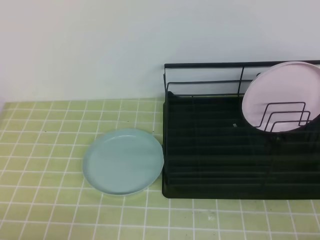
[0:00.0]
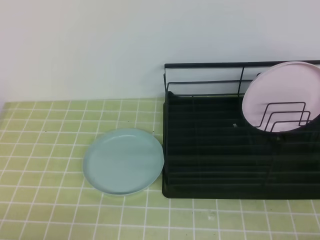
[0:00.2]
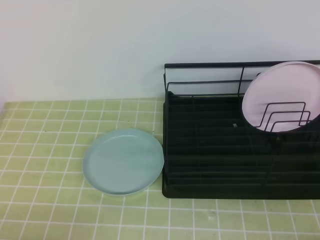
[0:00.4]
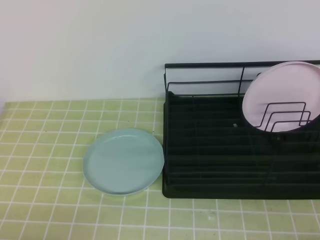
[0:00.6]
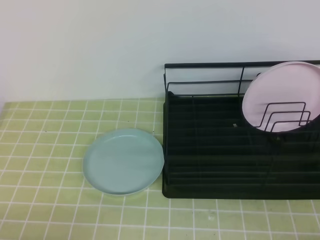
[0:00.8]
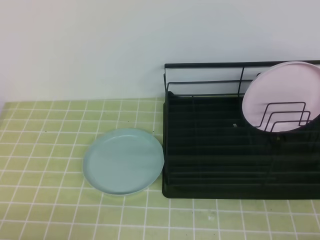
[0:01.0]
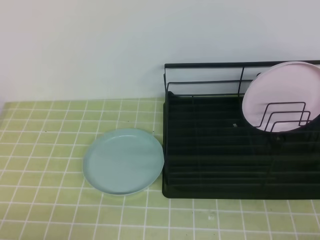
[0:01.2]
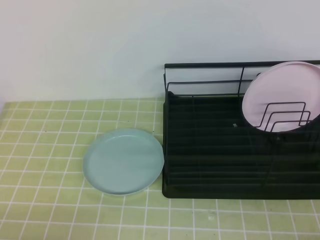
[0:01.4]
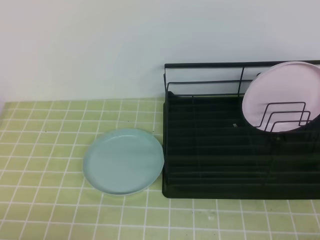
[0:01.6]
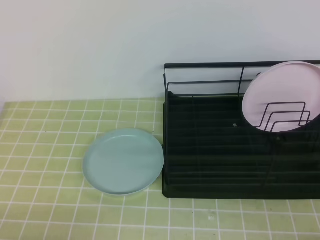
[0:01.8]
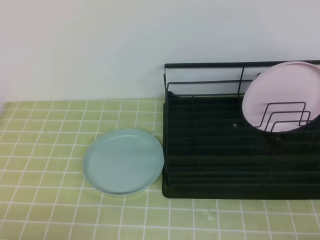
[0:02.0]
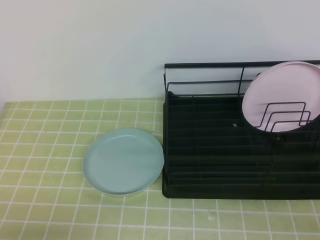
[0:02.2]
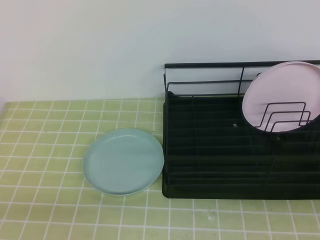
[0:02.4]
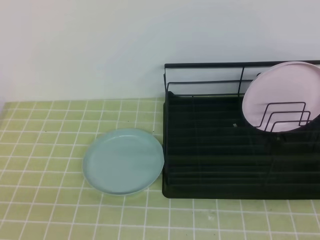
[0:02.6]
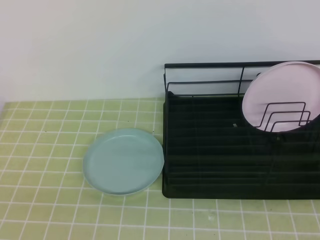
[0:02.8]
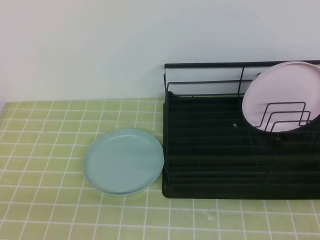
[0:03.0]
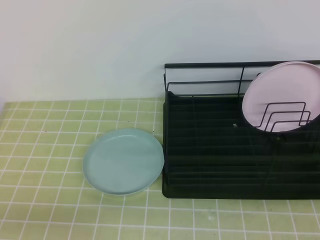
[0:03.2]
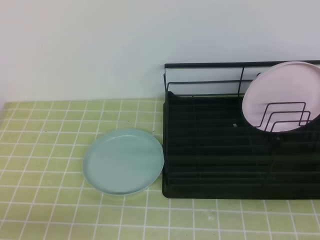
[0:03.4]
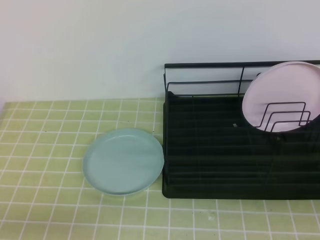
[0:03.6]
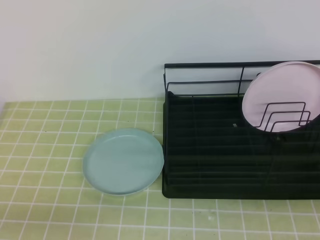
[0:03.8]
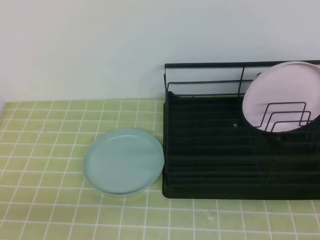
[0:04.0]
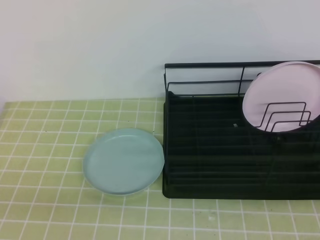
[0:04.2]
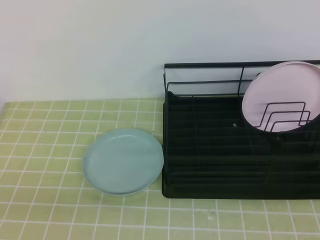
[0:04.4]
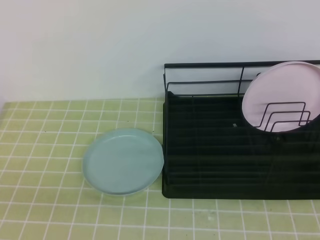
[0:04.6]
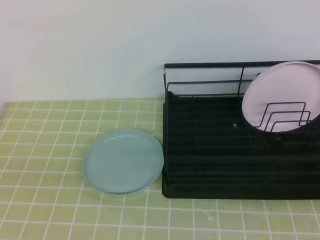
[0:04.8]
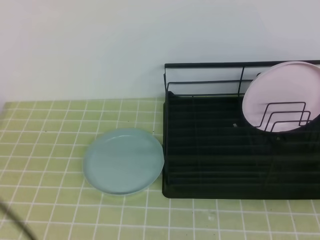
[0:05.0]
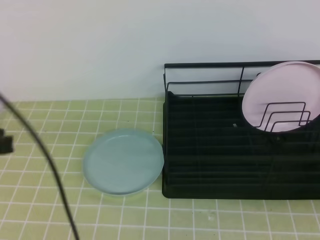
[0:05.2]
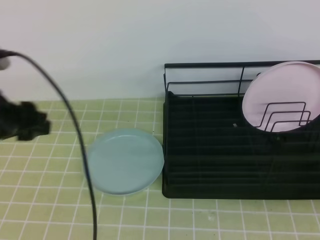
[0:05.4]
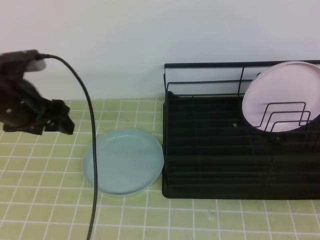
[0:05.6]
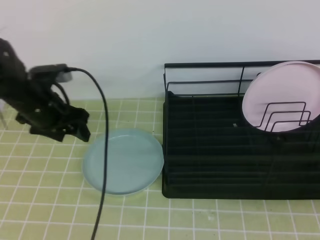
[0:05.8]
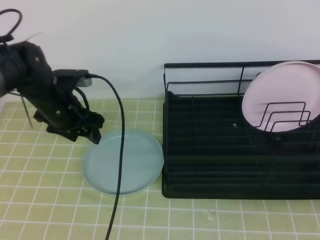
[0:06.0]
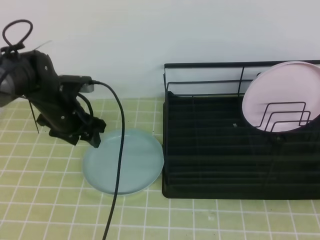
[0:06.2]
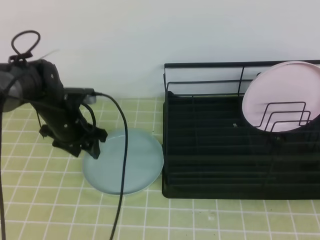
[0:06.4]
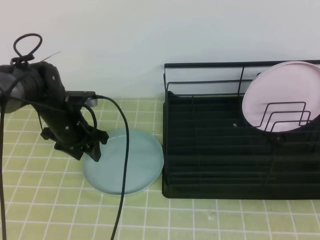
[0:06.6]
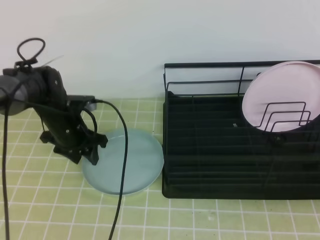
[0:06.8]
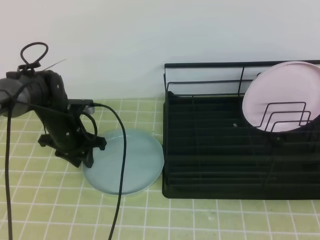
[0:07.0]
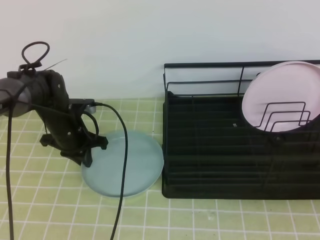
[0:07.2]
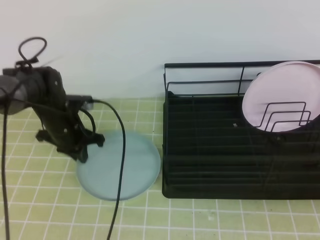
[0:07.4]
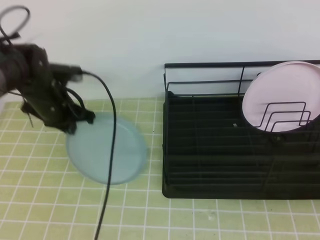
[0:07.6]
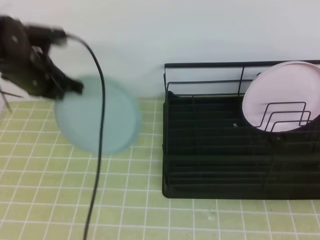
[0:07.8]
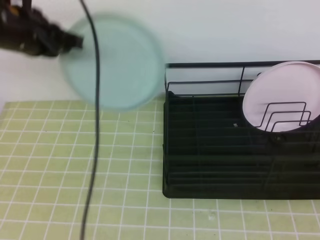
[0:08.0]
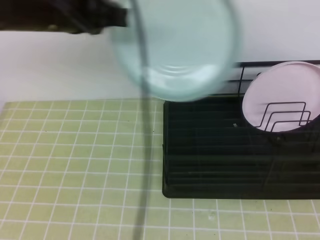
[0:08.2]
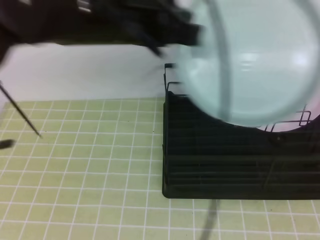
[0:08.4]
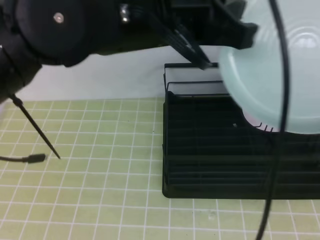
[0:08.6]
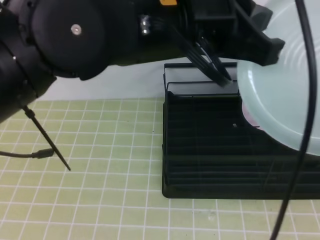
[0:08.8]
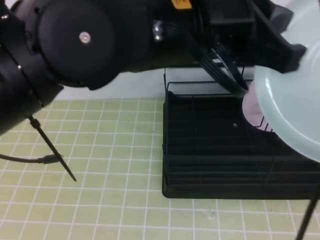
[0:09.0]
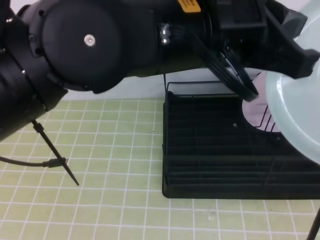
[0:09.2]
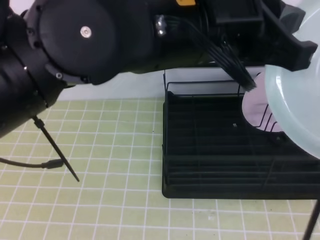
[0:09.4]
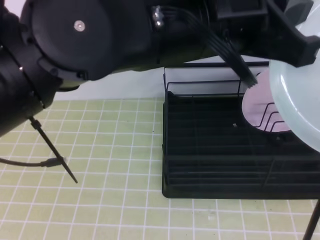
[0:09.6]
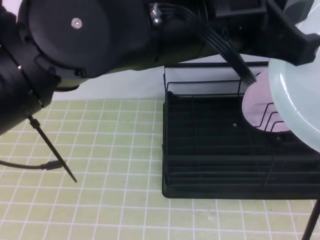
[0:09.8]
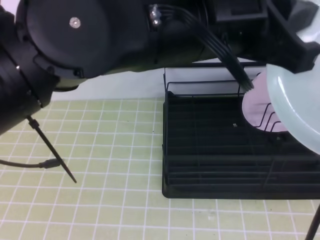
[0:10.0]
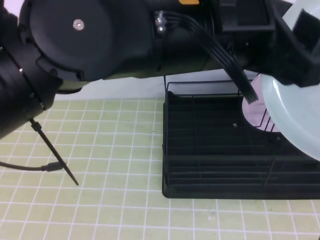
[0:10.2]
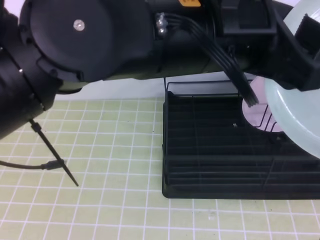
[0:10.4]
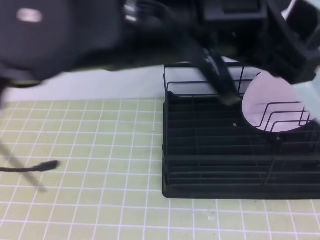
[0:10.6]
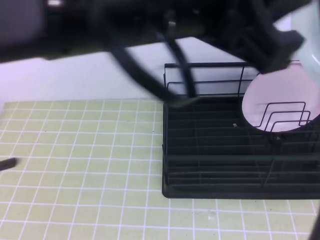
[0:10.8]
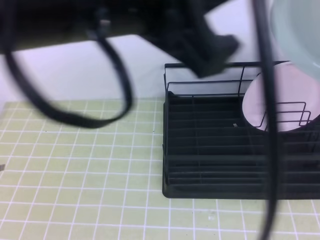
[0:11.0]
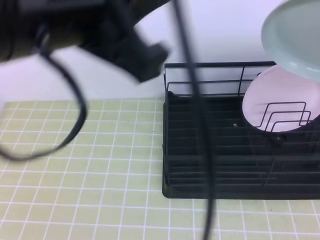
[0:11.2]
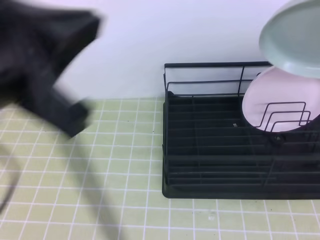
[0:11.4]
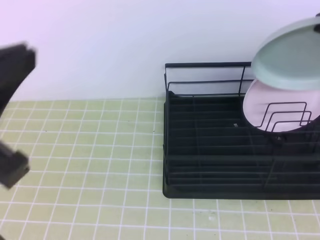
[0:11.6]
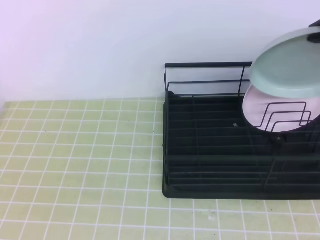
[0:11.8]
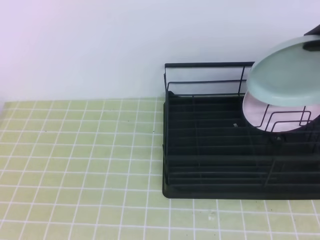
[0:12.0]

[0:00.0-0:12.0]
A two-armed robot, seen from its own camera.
0:00.0 to 0:01.6: Both grippers stay put.
0:04.4 to 0:06.0: The left gripper is displaced forward by some 35 cm, and opens.
0:06.0 to 0:07.6: The left gripper goes downward and returns, approximately 5 cm each way, and closes up.
0:07.6 to 0:09.0: The right gripper travels upward by some 10 cm, and opens its fingers, while the left gripper travels upward, backward and to the right by roughly 35 cm.
0:09.0 to 0:10.4: The left gripper opens up.
0:10.4 to 0:12.0: The left gripper is displaced to the left and backward by approximately 25 cm, and closes up. Meanwhile the right gripper travels forward by roughly 25 cm.

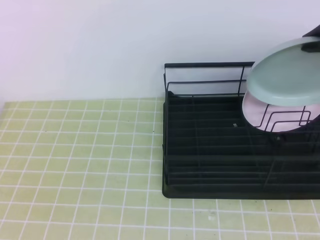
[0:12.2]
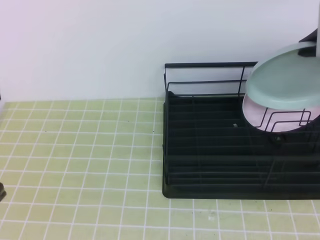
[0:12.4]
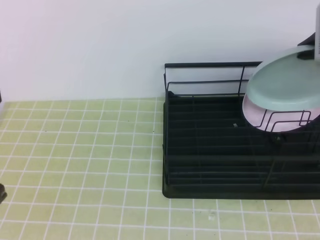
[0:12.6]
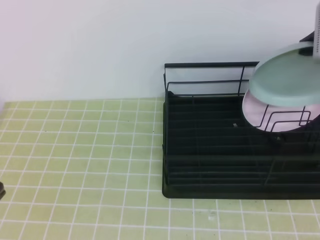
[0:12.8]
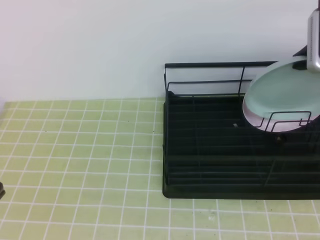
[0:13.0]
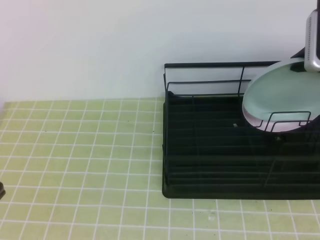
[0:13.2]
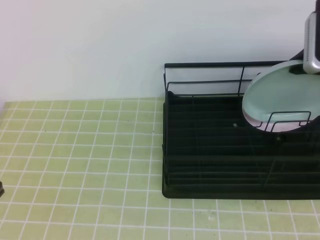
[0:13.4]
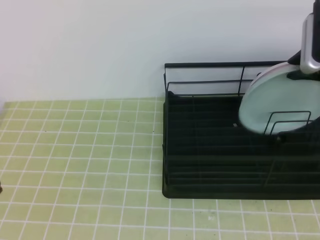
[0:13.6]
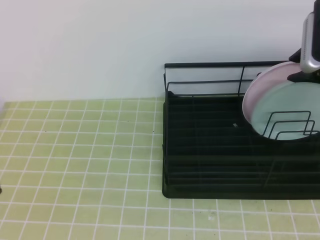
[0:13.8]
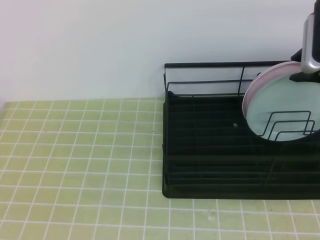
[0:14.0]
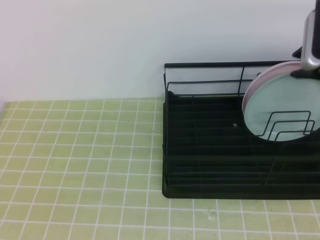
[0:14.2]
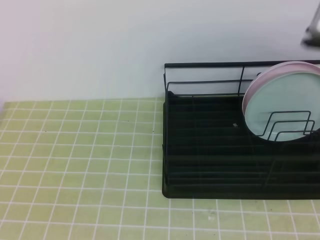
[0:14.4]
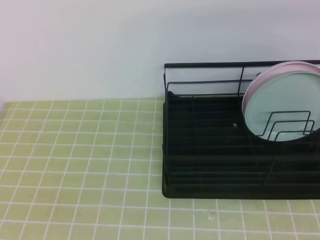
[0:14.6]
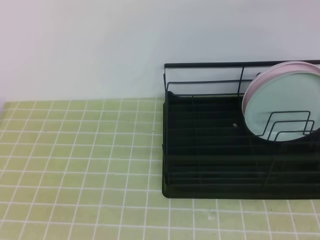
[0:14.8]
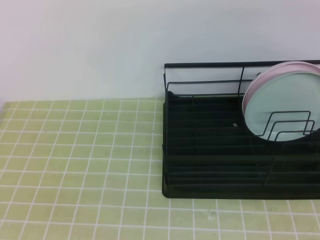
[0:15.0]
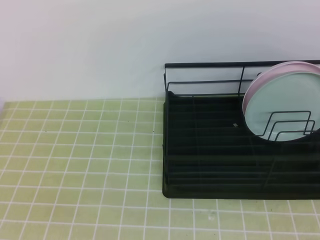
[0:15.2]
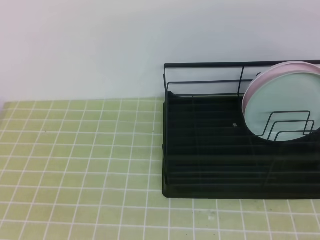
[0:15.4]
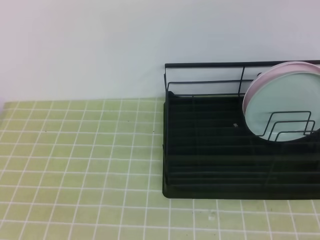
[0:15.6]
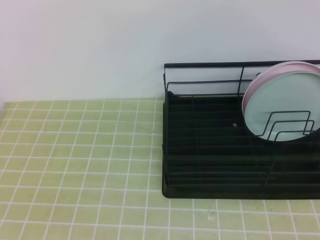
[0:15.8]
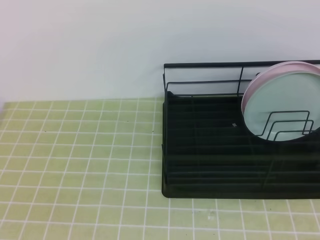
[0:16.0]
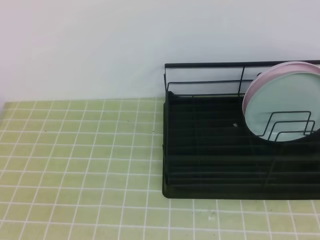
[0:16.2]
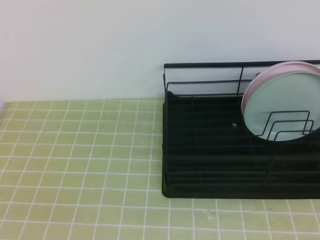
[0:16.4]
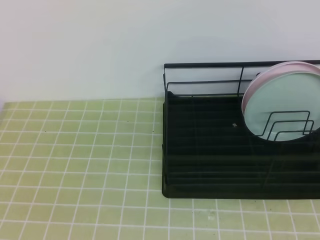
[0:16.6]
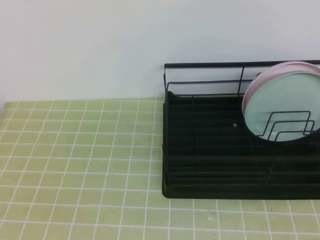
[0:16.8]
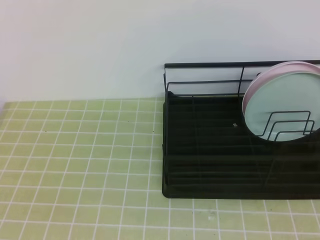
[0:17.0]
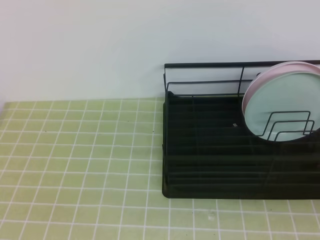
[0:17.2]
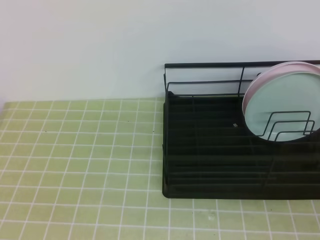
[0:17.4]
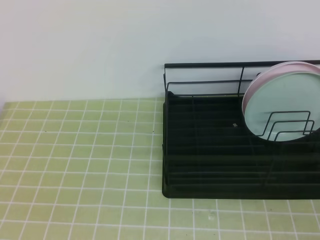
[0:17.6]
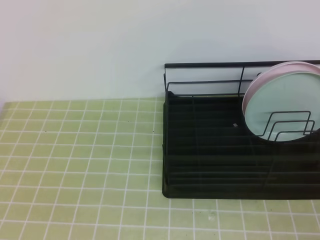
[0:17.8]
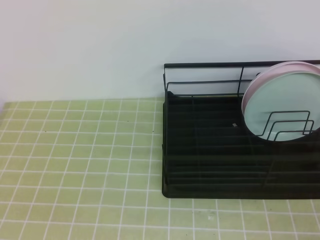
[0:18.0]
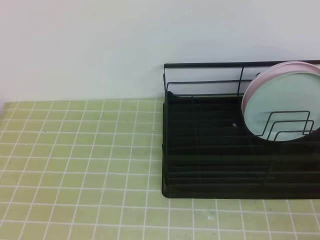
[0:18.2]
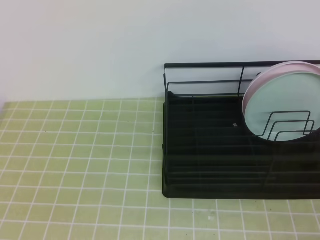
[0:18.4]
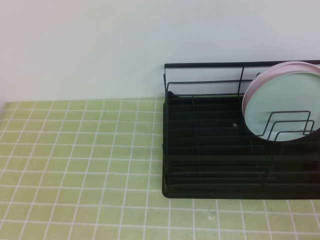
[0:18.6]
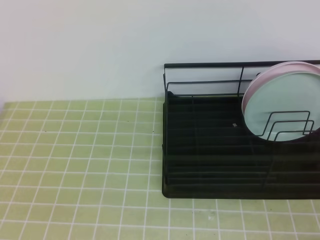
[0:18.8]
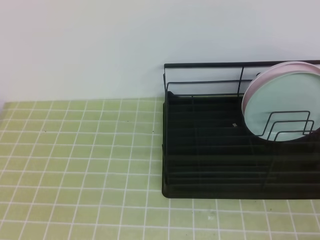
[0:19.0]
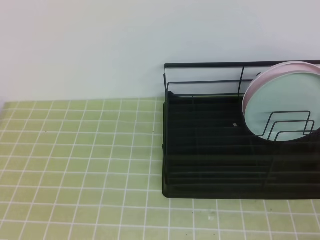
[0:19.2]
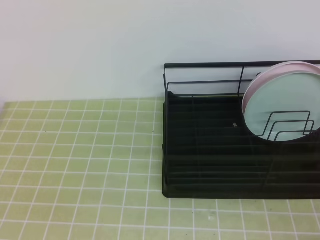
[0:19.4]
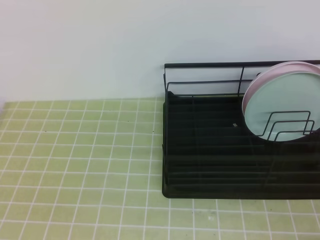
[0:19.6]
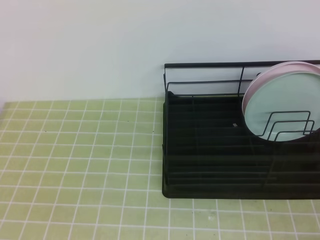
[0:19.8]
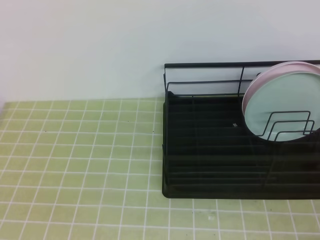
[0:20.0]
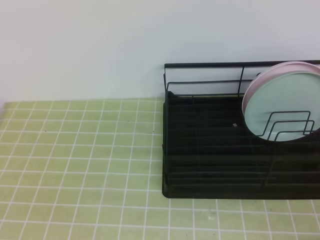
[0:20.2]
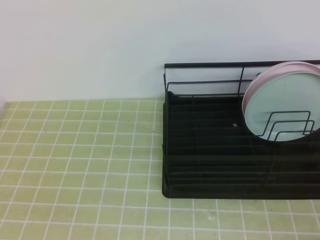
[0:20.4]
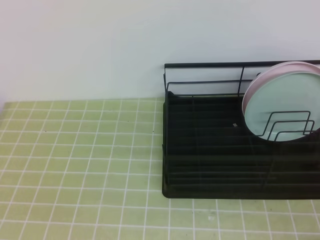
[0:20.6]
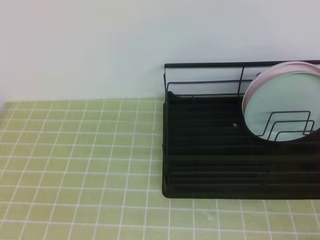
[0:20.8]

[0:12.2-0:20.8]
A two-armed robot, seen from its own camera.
0:12.2 to 0:13.6: The right gripper travels downward by some 5 cm.
0:13.6 to 0:15.0: The right gripper travels upward and backward by roughly 20 cm, and closes its fingers.
0:18.0 to 0:20.8: Both grippers stay about where they are.
